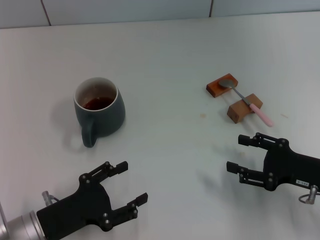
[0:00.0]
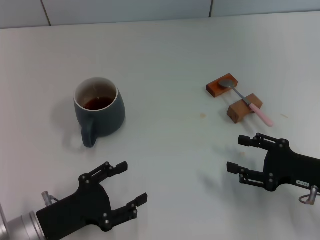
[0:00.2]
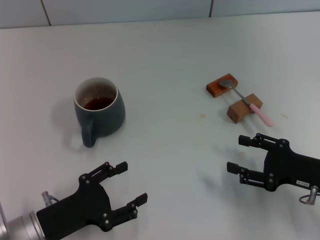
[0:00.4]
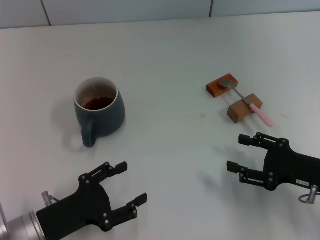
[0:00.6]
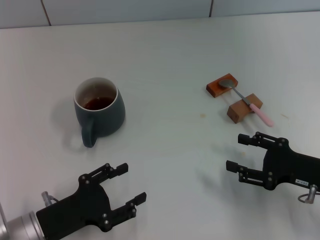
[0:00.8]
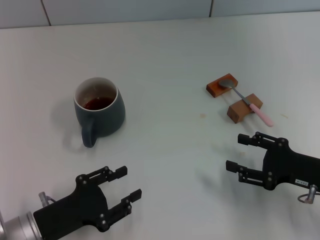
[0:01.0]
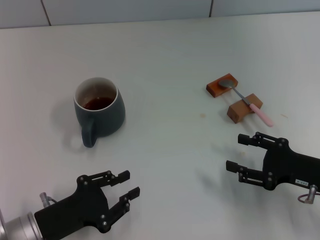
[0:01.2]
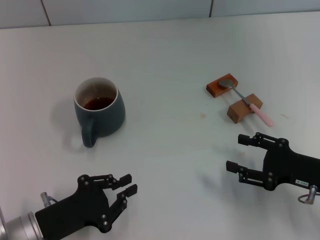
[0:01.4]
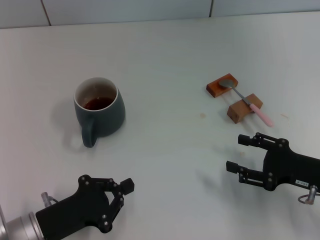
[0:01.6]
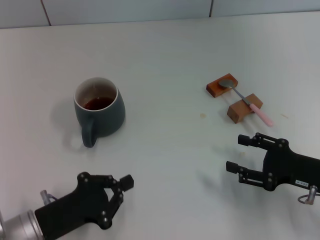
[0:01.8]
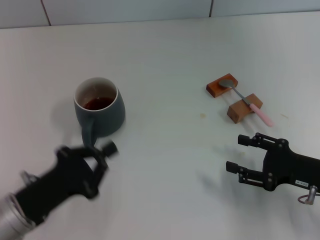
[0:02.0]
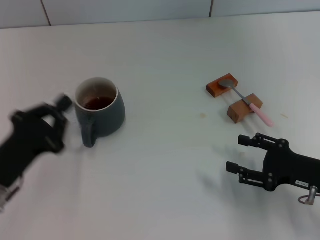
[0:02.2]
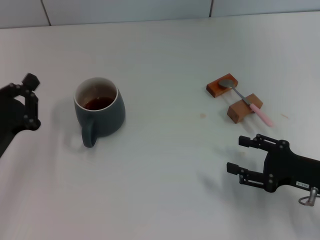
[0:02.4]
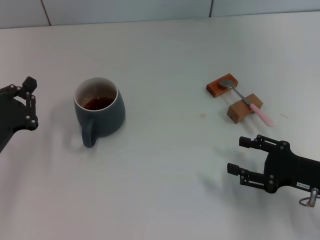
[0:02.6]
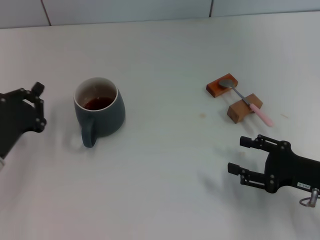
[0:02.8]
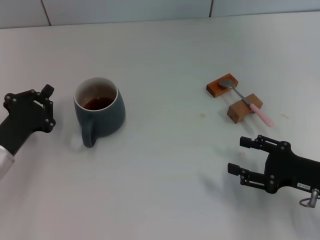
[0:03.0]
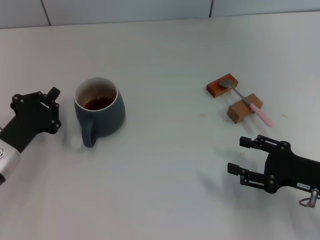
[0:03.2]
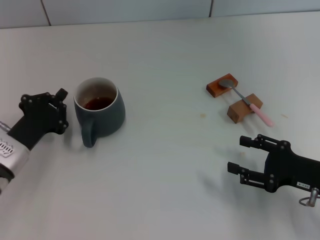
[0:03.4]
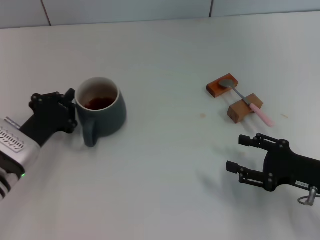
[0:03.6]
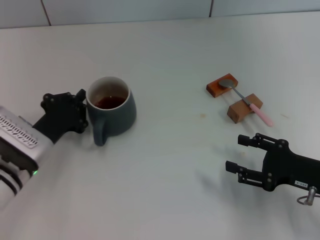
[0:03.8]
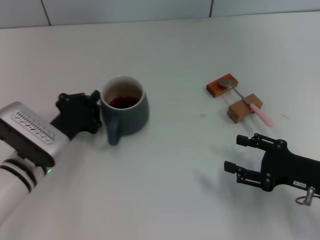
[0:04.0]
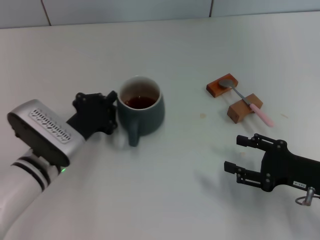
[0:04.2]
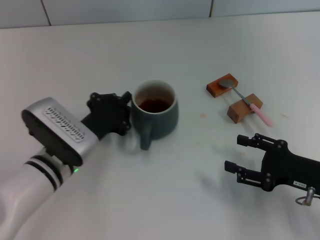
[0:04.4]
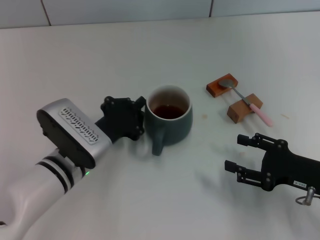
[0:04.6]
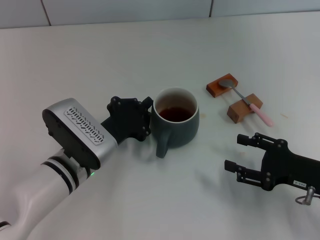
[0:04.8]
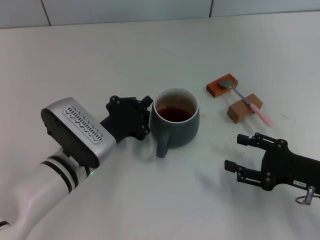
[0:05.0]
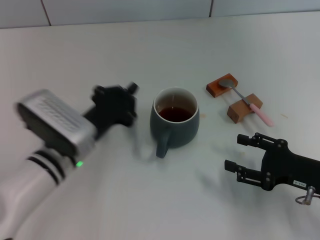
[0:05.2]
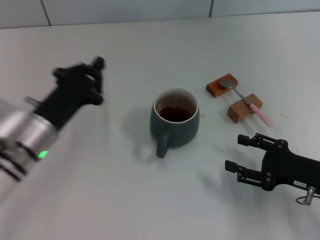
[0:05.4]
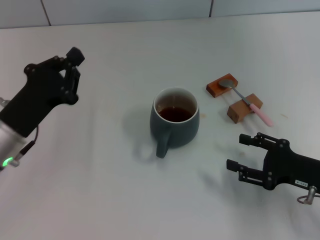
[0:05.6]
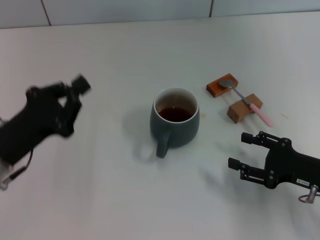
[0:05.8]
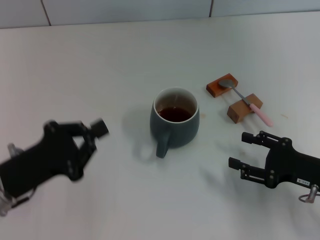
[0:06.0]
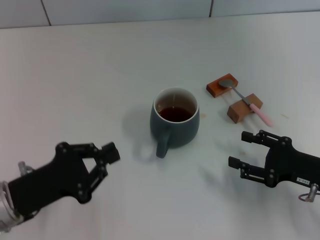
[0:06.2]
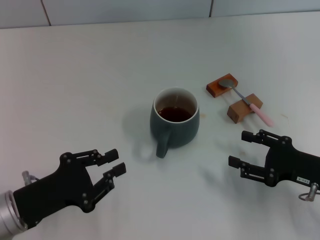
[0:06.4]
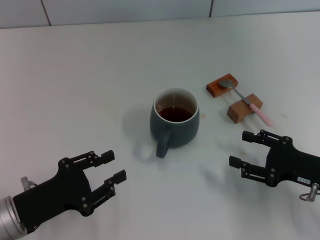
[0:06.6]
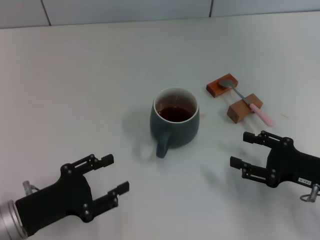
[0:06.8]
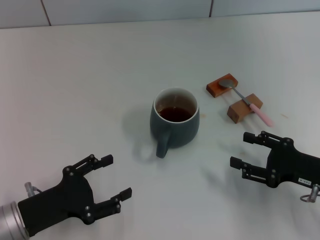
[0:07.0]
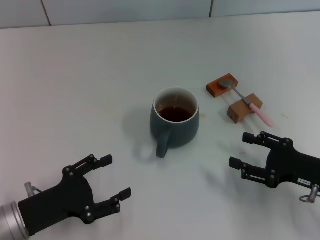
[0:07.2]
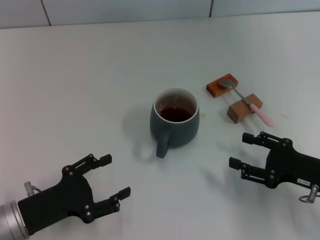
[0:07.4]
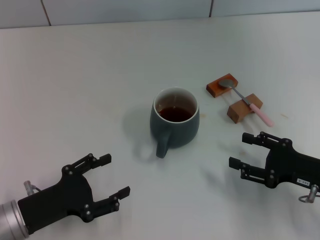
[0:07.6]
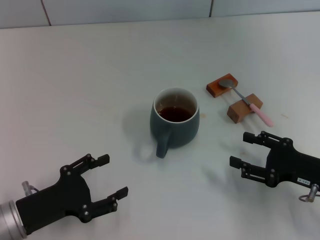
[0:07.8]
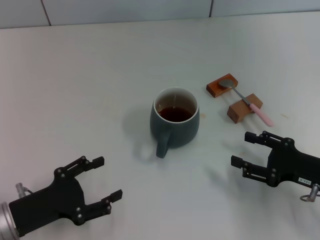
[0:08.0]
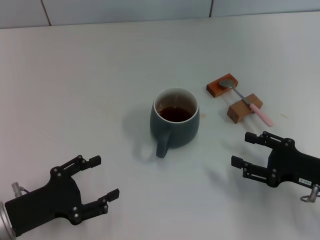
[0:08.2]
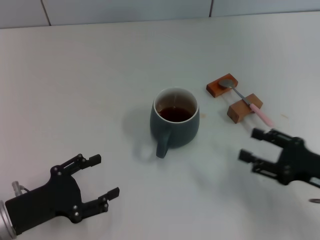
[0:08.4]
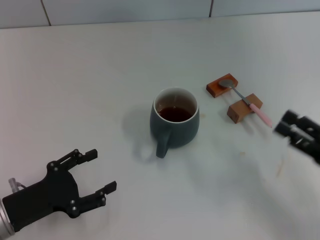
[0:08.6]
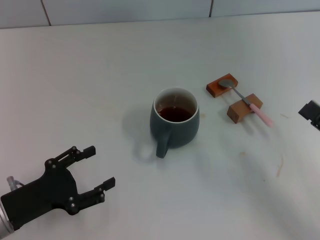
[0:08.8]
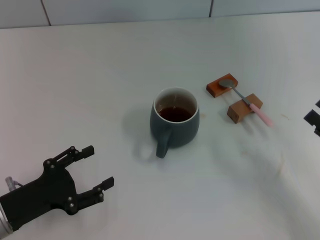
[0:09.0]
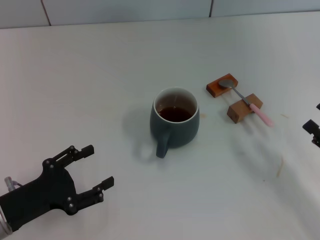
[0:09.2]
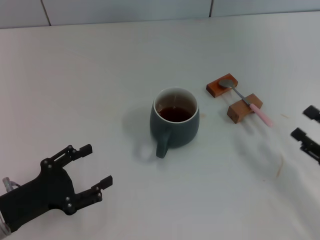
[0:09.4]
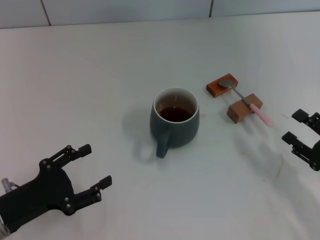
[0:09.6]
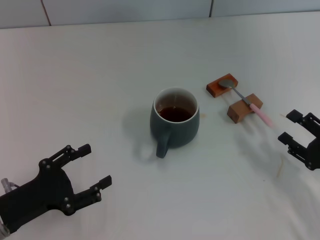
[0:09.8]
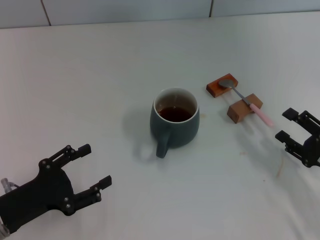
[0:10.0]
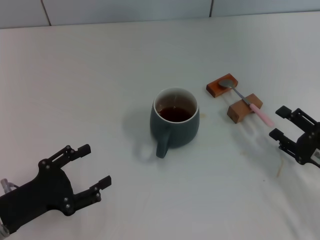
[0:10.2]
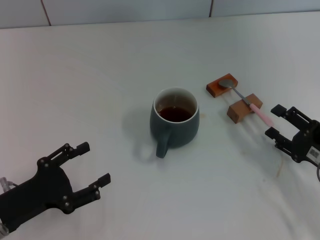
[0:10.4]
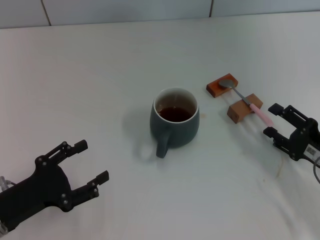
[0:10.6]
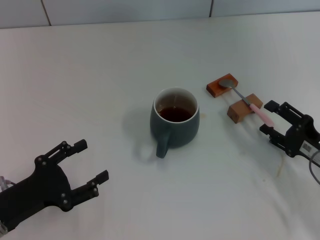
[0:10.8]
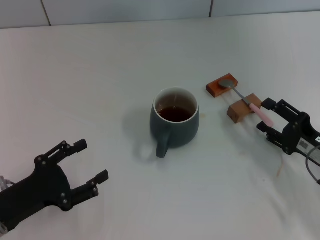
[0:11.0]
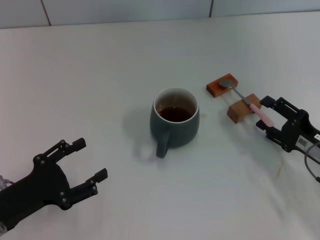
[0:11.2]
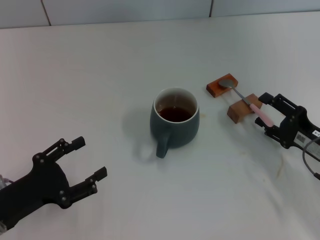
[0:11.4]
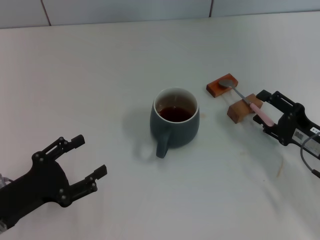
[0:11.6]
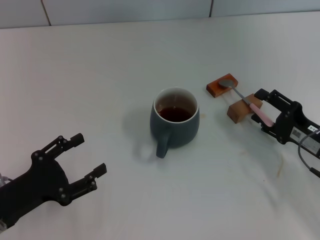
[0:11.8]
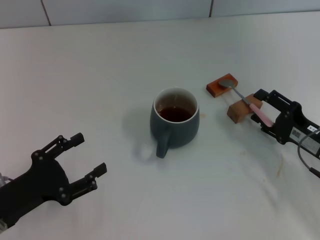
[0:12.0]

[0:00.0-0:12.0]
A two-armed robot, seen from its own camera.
Task of the whole recording: Move the grey cup to the center, lift the pink spoon, stir it three times in the cup, and put the spoon into the cup.
Step, 0:00.0 to 0:05.2: Move the cup with coffee to the center of view with the left gripper.
0:00.0 to 0:01.6: The left gripper closes its fingers.
0:01.6 to 0:03.0: The left gripper travels forward by roughly 10 cm.
0:03.0 to 0:04.4: The left gripper goes about 10 cm to the right.
0:04.4 to 0:06.0: The left gripper shifts some 10 cm to the left and backward.
0:06.0 to 0:07.6: The left gripper opens up.
0:07.6 to 0:09.0: The right gripper ends up about 5 cm from where it was.
0:09.0 to 0:10.4: The right gripper changes place by some 5 cm.
0:10.4 to 0:12.0: The grippers move only a little.

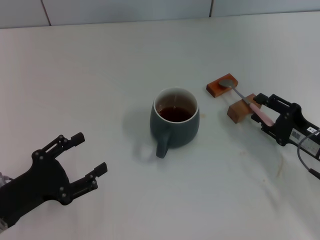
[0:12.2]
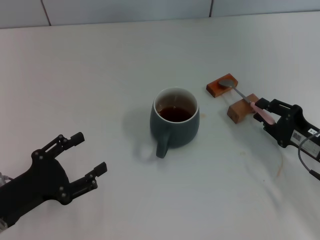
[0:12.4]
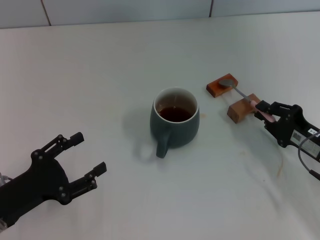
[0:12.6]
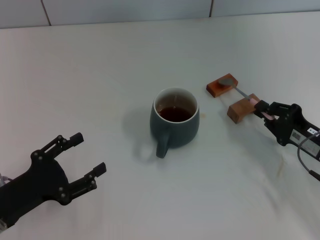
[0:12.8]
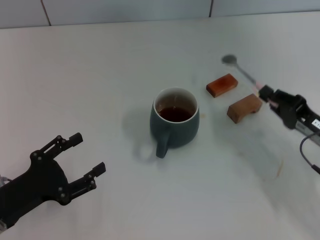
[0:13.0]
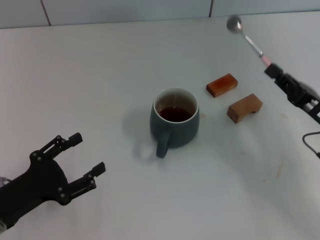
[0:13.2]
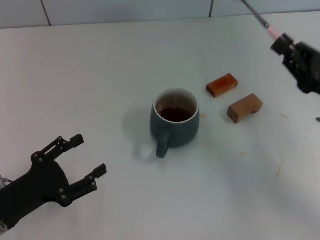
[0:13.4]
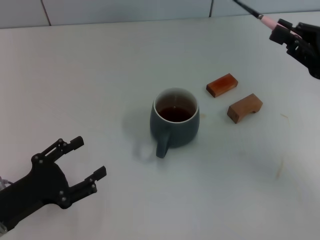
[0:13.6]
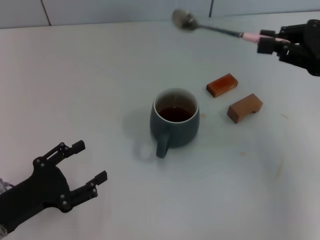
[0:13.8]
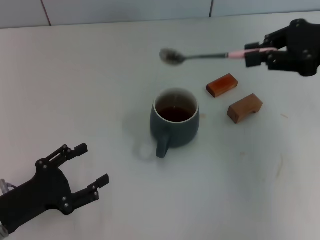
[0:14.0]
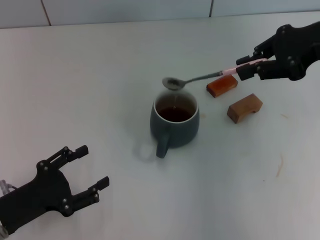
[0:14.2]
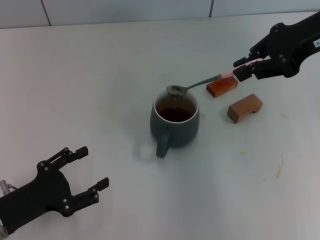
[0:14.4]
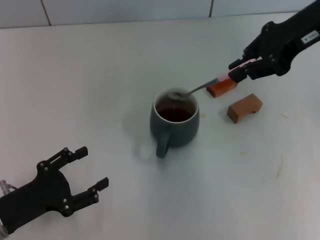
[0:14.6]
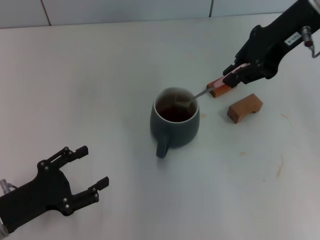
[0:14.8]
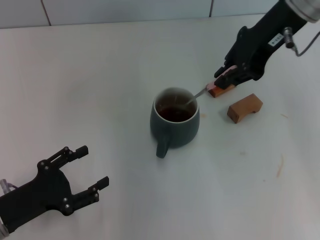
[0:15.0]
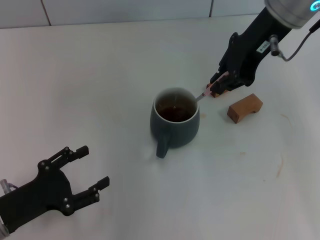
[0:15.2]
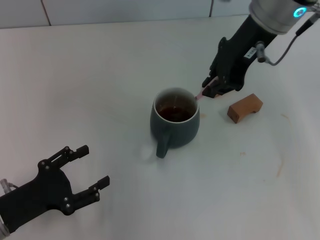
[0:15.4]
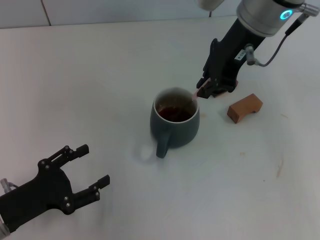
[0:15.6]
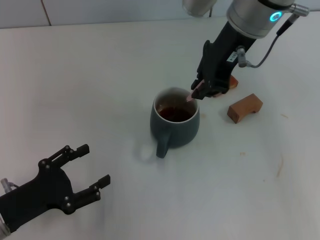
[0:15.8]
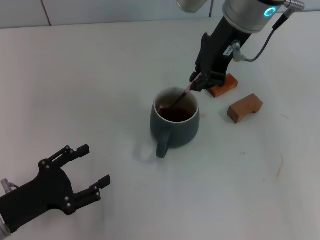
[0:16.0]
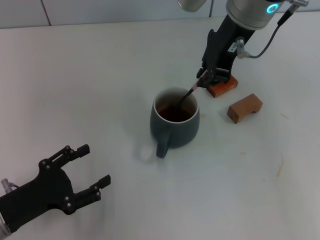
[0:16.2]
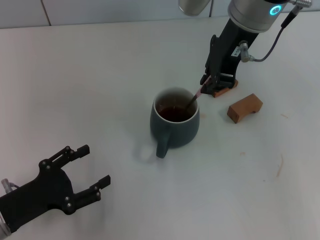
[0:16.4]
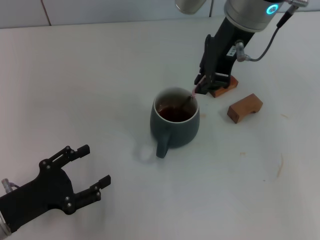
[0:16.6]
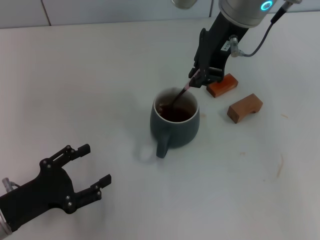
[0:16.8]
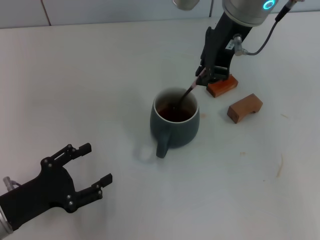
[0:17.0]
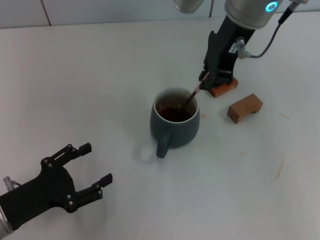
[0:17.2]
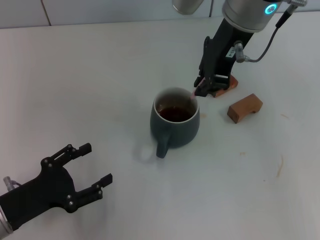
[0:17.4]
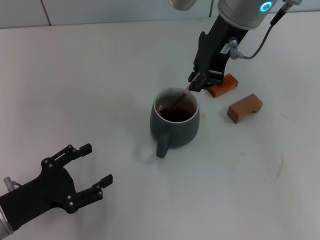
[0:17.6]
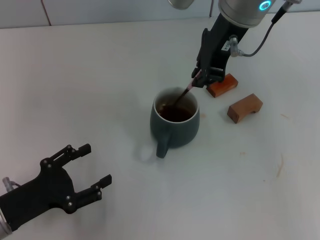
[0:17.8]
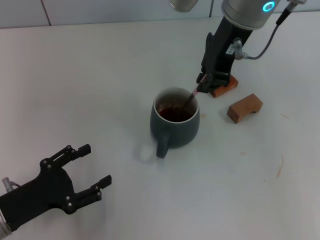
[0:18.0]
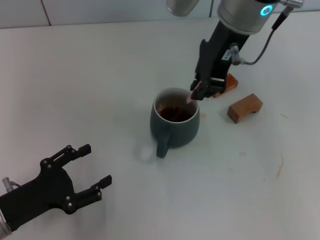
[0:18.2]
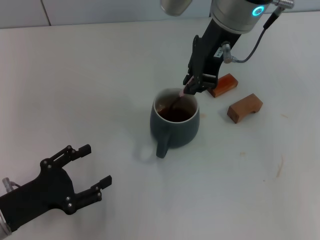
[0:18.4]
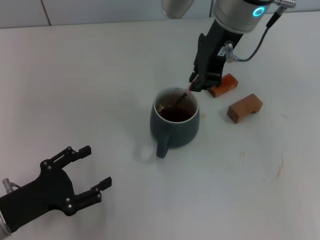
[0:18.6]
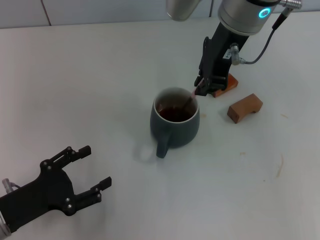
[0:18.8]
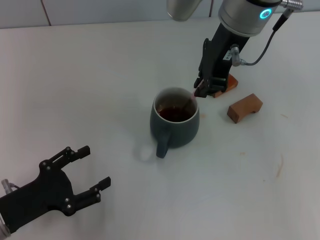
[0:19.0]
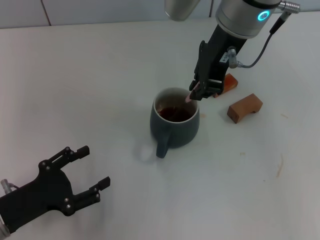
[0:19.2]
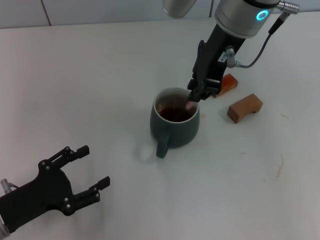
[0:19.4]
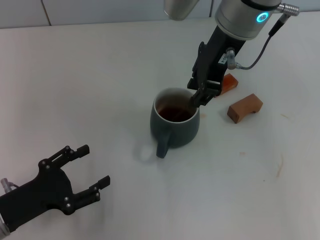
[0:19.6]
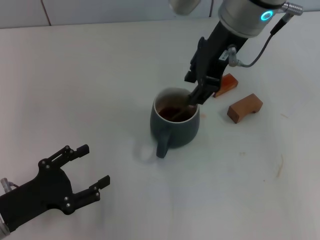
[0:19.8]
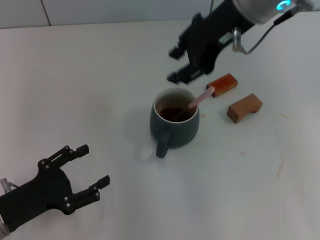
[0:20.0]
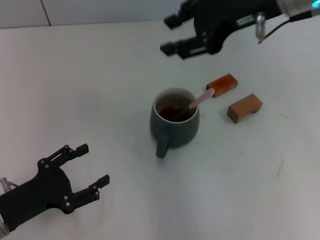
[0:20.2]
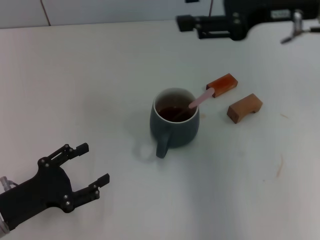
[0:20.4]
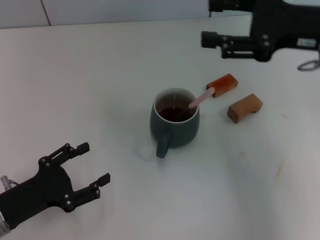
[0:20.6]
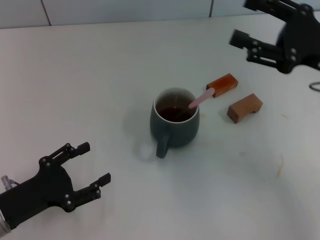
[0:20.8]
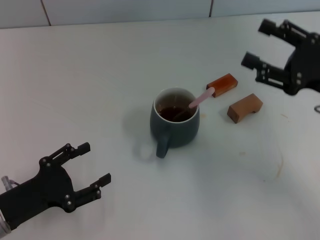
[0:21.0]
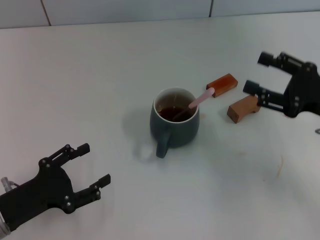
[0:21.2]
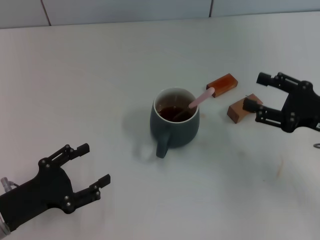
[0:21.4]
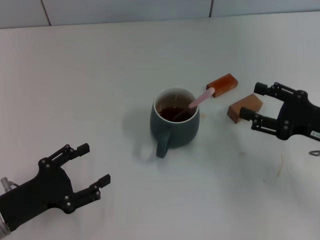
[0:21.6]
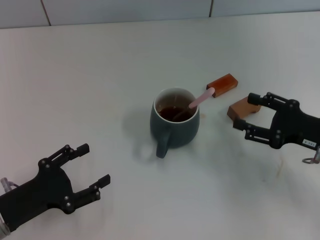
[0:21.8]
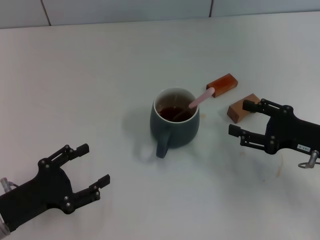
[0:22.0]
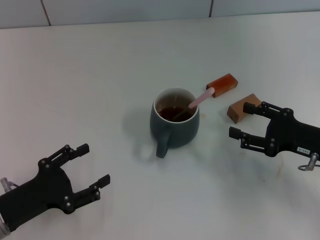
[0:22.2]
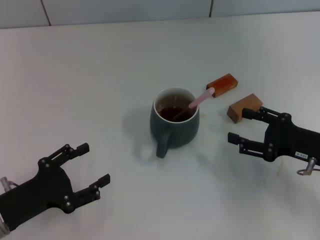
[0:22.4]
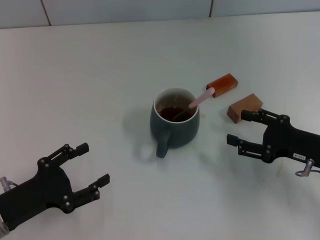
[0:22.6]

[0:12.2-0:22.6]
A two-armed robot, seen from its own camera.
Task of the whole recording: Move the grey cup to the center, lift the pink spoon, stir it three times in the cup, and put the spoon into the cup.
Step, 0:13.2 to 0:20.2: Stir the coffee in the cup with the right gripper.
0:12.2 to 0:13.6: The right gripper shifts roughly 15 cm upward, and closes its fingers.
0:13.6 to 0:15.2: The right gripper heads to the left, upward and forward, covering roughly 20 cm.
0:15.2 to 0:16.6: The right gripper travels to the left by approximately 5 cm.
0:16.6 to 0:19.6: Both grippers stay put.
0:19.6 to 0:21.2: The right gripper moves to the right, downward and backward, approximately 30 cm, and opens its fingers.
0:21.2 to 0:22.6: The right gripper is displaced downward by roughly 5 cm.
